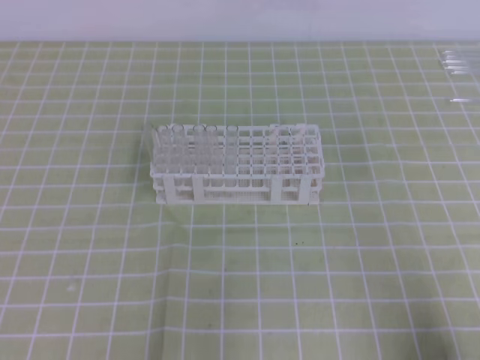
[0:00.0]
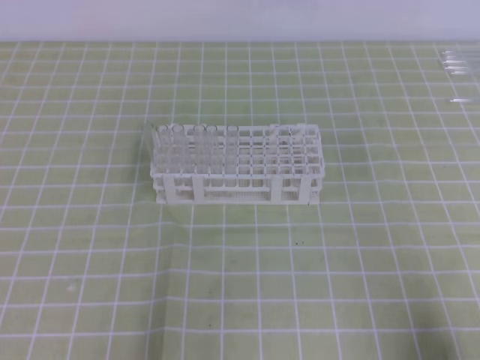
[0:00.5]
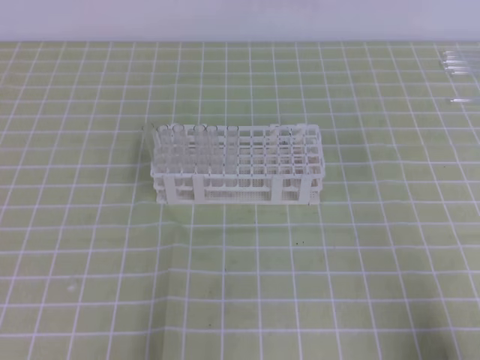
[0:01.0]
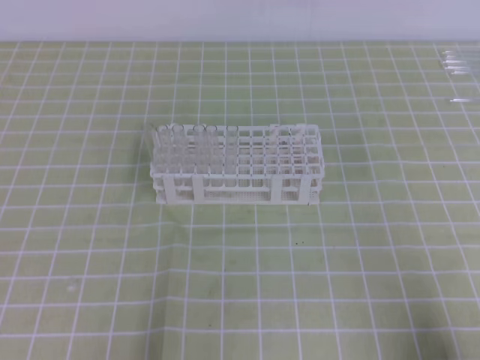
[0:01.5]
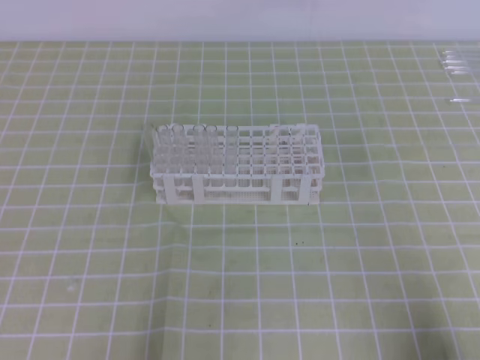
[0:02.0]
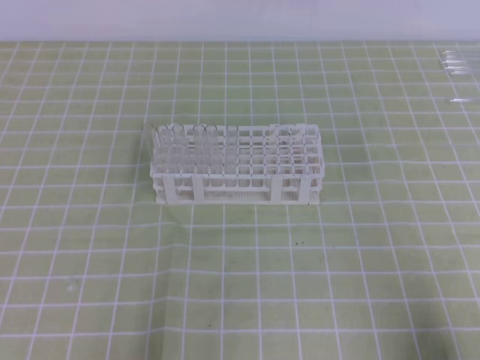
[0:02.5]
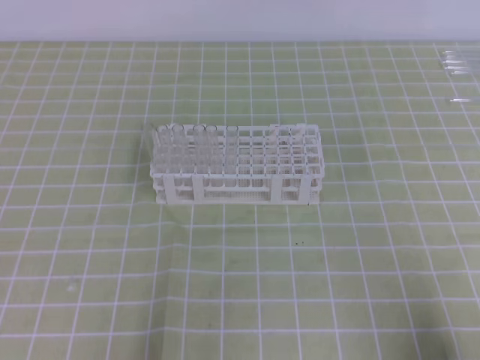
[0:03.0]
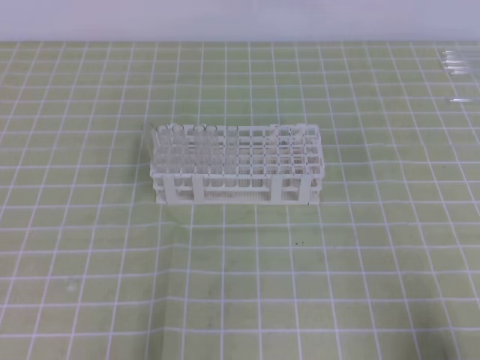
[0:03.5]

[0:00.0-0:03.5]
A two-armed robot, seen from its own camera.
0:02.0 to 0:03.5: Both grippers stay put.
